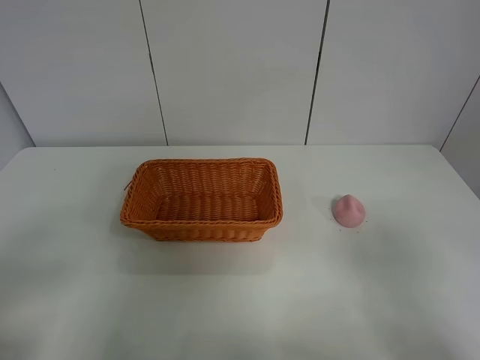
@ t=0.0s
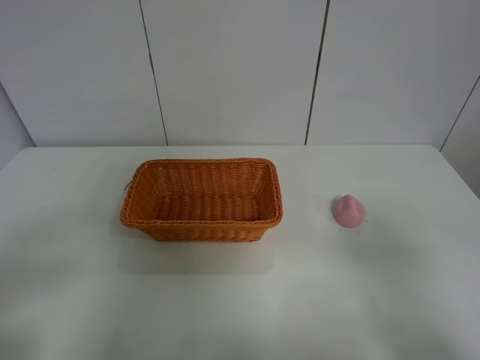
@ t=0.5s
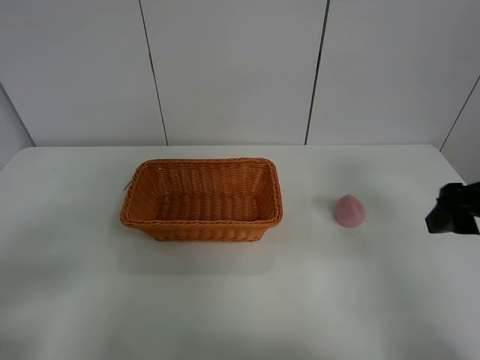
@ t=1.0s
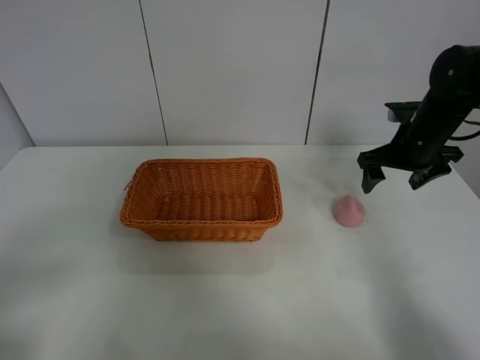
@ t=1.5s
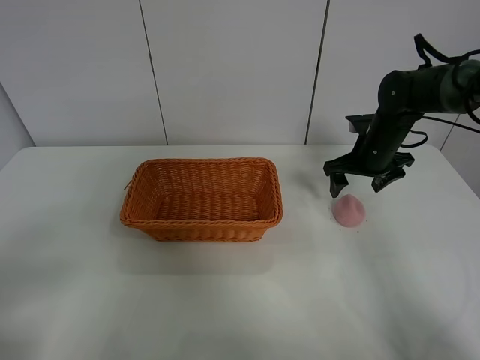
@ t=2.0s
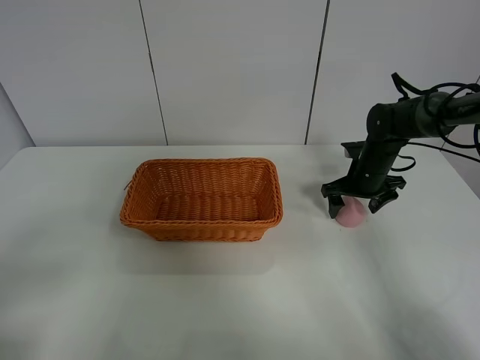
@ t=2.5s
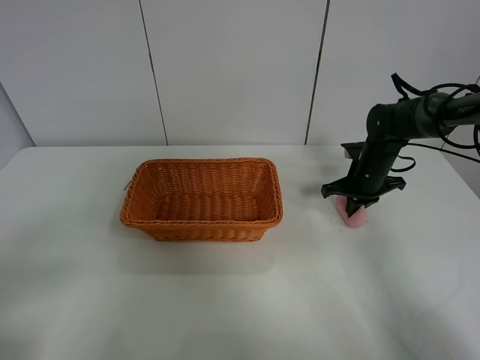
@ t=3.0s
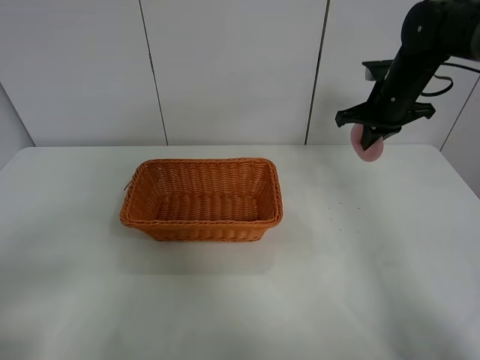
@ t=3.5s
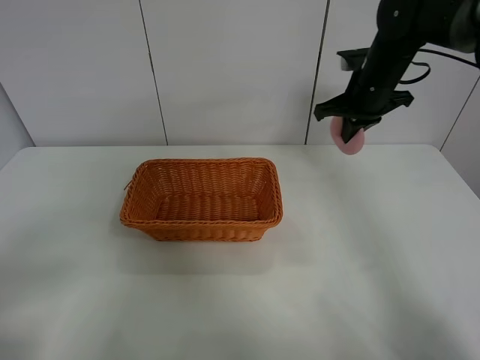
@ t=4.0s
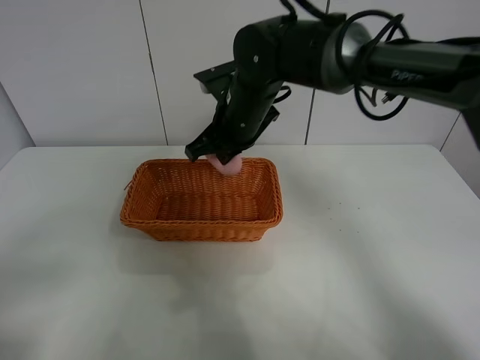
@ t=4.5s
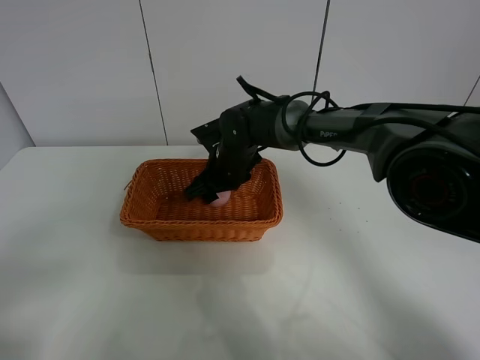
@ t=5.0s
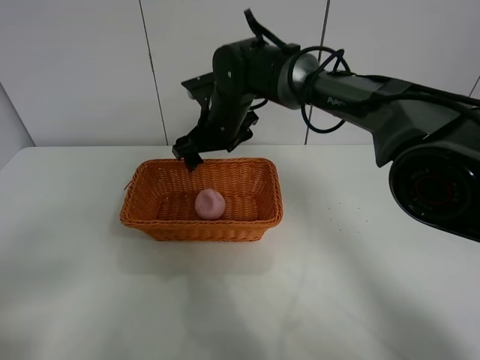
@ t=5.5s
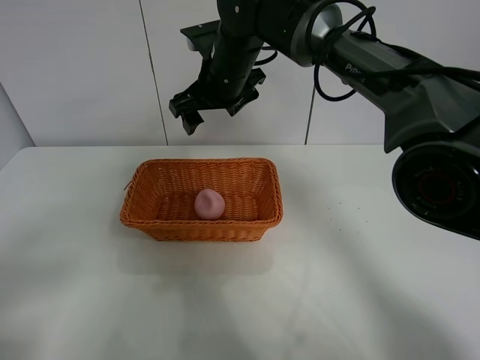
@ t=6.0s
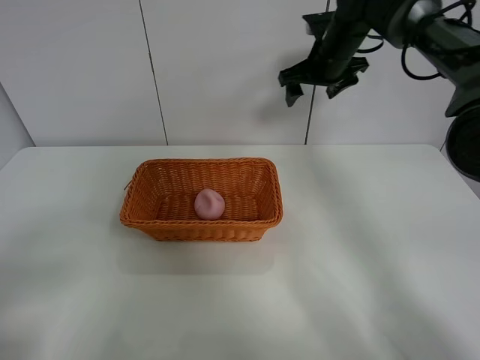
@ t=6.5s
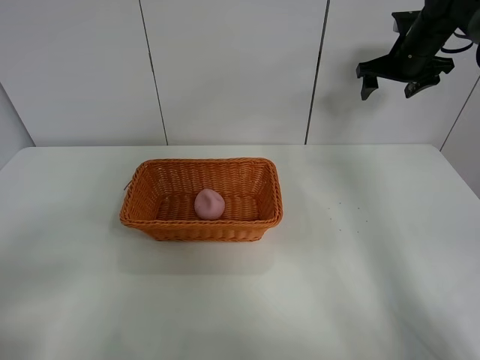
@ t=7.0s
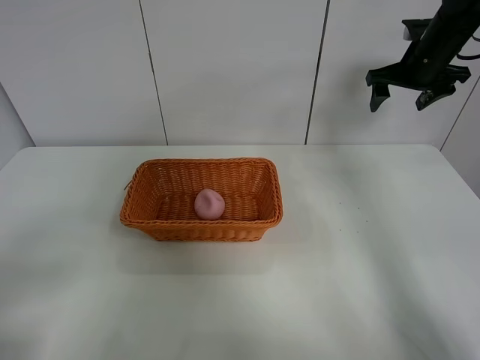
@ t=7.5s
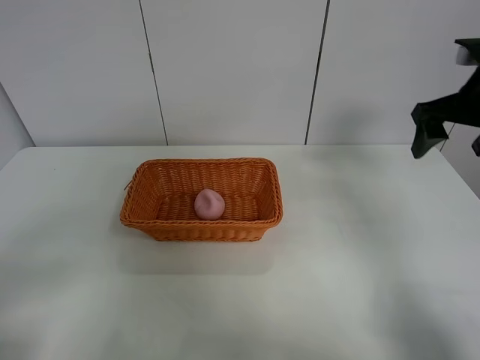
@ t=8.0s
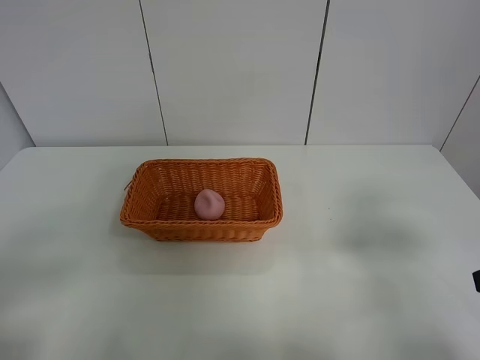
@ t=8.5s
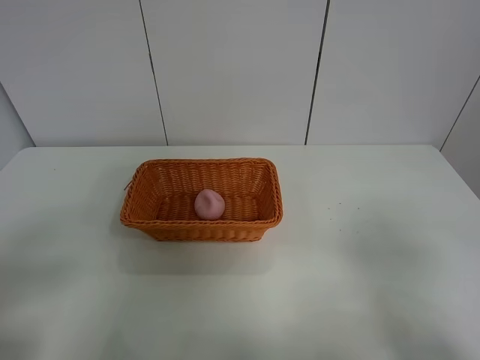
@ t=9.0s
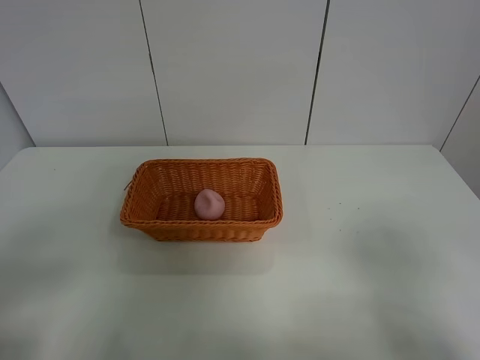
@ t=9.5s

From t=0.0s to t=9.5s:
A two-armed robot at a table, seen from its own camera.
Step, from t=0.0s to t=3.0s: Grasp the peach with right gripper.
Step, from t=3.5s to t=5.5s: Place the peach in the basket with right gripper.
From t=0.0s to t=2.0s: The right gripper moves forward, some 40 cm.
From t=2.0s to t=4.0s: The right gripper travels upward and to the left by some 10 cm, and closes up.
From t=4.0s to t=5.5s: The right gripper goes roughly 20 cm to the left, and opens its fingers.
From t=5.5s to t=7.5s: The right gripper goes some 30 cm to the right.
From t=7.5s to t=9.5s: The right gripper shifts some 50 cm backward.

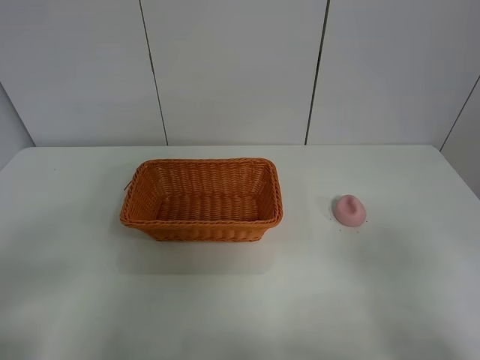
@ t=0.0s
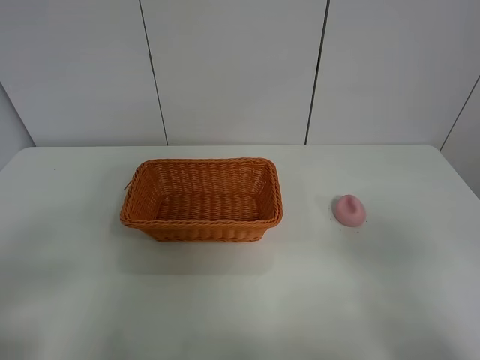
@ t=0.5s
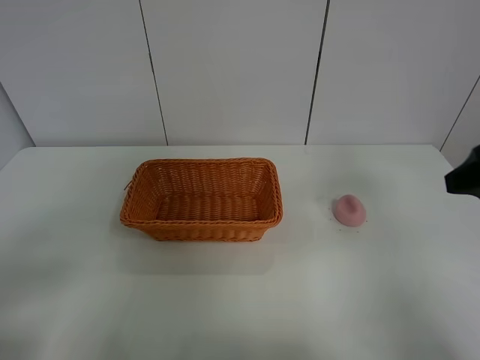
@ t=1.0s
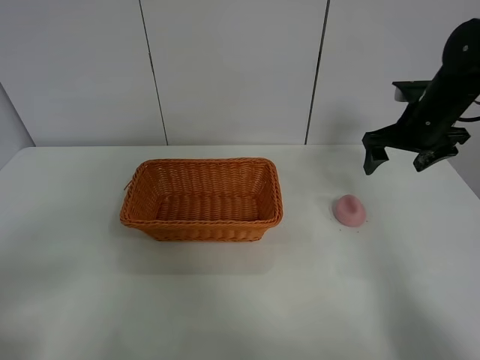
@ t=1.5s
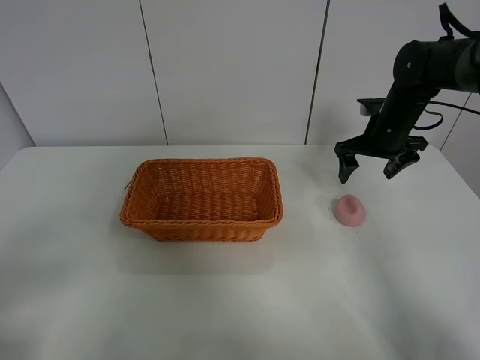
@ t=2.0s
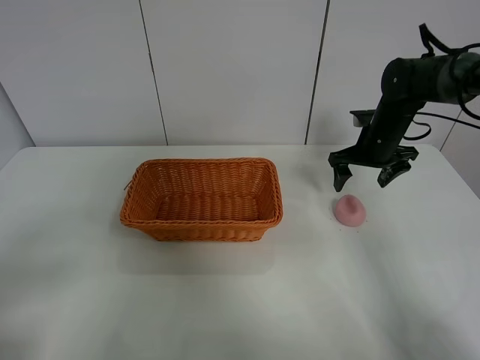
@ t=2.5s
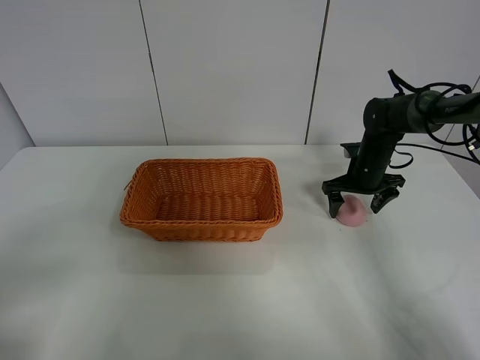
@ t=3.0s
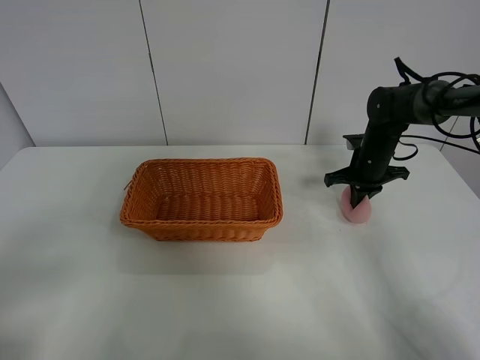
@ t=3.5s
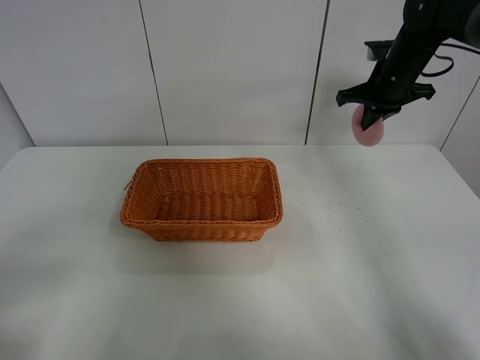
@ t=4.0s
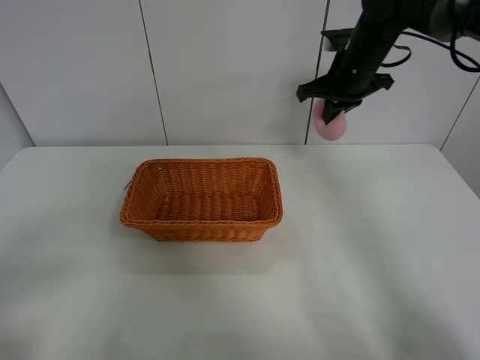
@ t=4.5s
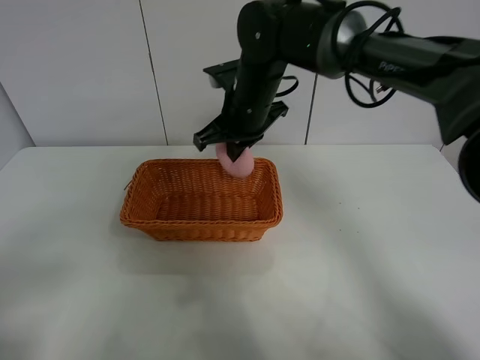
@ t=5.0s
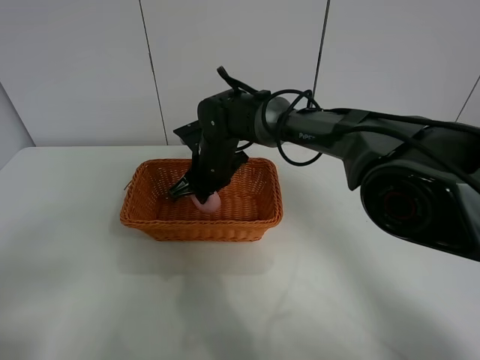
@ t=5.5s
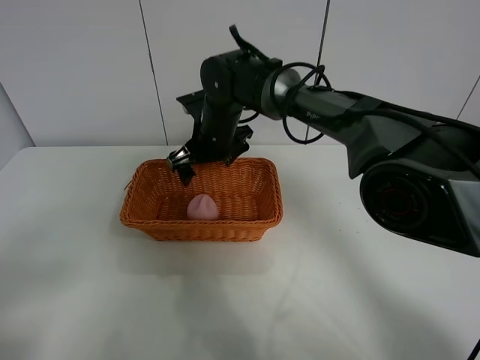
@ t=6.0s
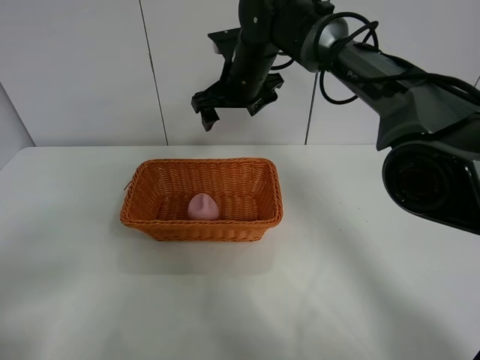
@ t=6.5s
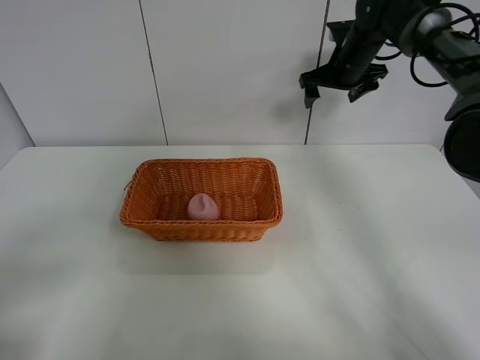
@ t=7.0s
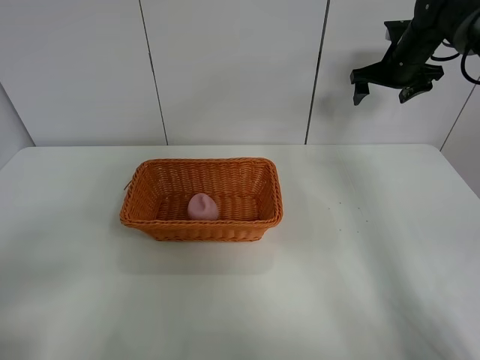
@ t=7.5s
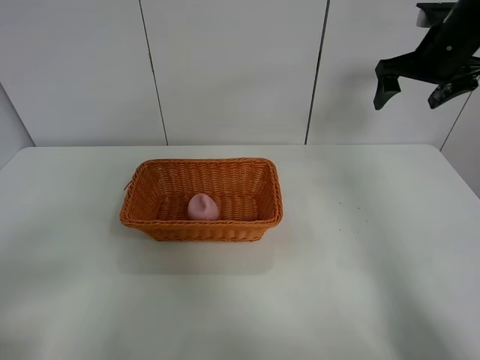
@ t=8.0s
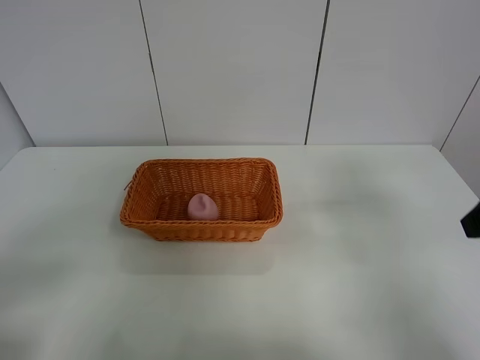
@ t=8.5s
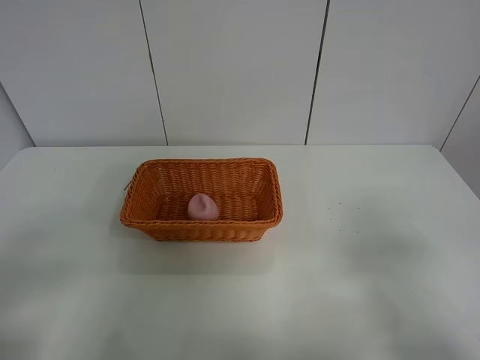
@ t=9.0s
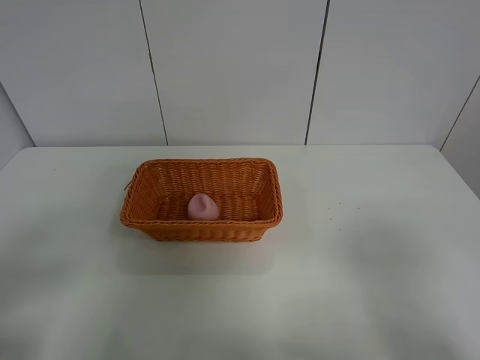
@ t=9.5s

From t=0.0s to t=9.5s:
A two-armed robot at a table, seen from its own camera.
Step, from t=0.0s to t=3.0s: Grasp the peach with right gripper.
Step, from t=3.5s to t=6.0s: Place the peach in the basket with right gripper.
From t=0.0s to t=2.0s: The right gripper heads forward, covering roughly 40 cm.
From t=2.0s to t=4.0s: The right gripper goes some 10 cm upward, and closes up.
From t=4.0s to t=5.5s: The right gripper is displaced to the left and downward by roughly 30 cm.
From t=5.5s to t=7.5s: The right gripper is displaced to the right by about 35 cm, and opens.
From t=7.5s to t=9.5s: The right gripper moves backward, about 50 cm.
